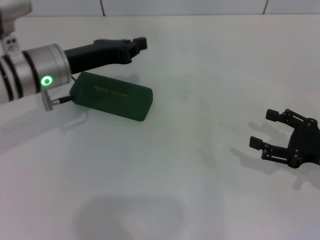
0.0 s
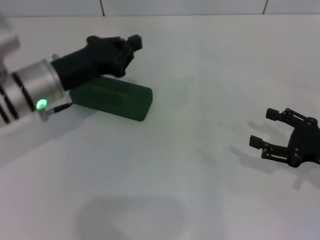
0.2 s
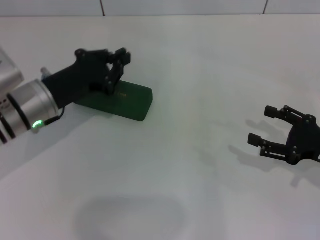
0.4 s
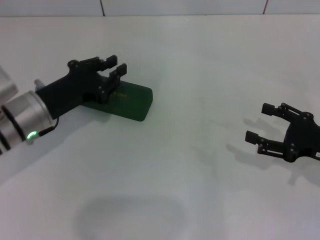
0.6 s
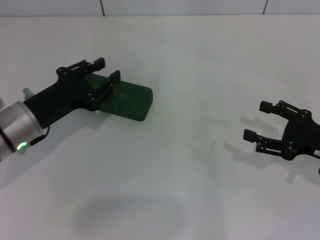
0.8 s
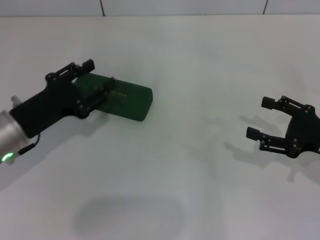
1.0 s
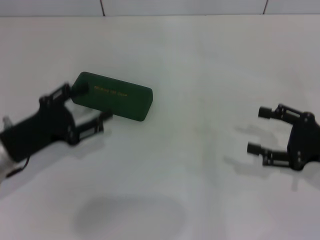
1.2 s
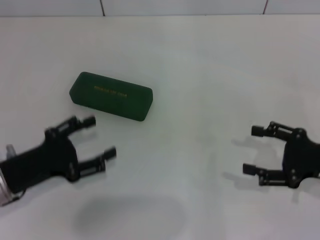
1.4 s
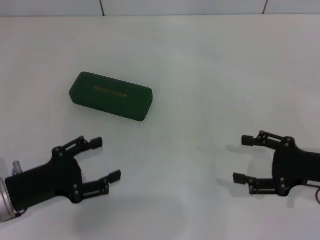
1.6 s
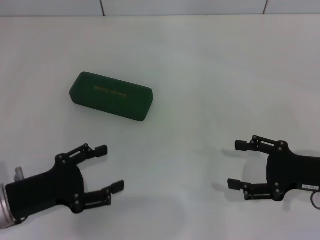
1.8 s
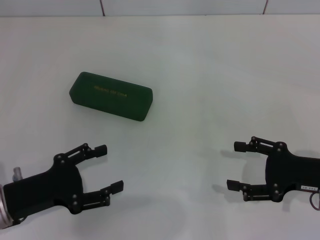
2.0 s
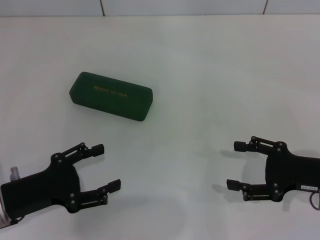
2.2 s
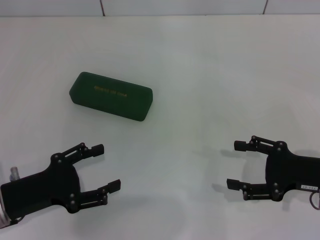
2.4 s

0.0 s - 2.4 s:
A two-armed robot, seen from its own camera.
0.0 s - 1.2 s: The left gripper travels backward, to the left and downward by roughly 15 cm, and opens its fingers.
1.2 s - 2.4 s: The left gripper moves backward, roughly 5 cm.

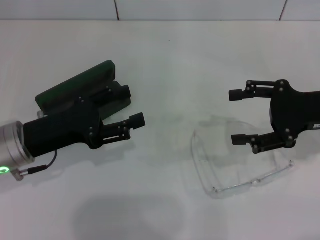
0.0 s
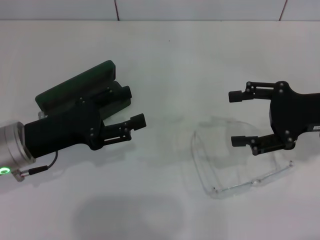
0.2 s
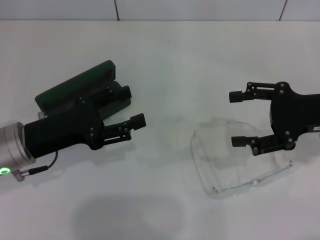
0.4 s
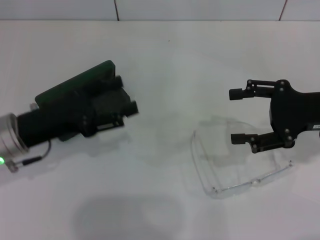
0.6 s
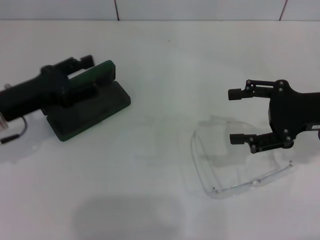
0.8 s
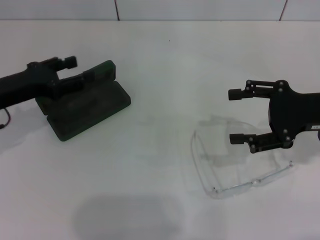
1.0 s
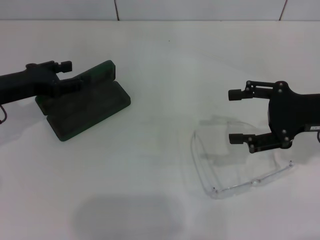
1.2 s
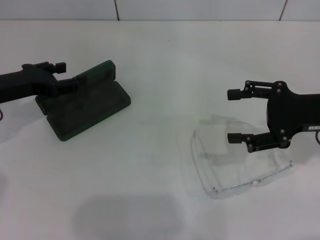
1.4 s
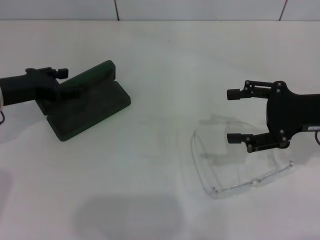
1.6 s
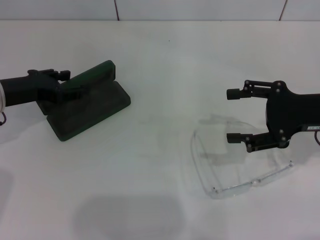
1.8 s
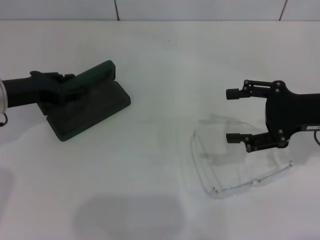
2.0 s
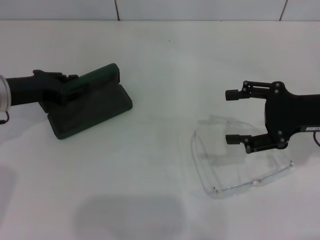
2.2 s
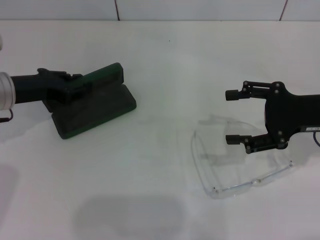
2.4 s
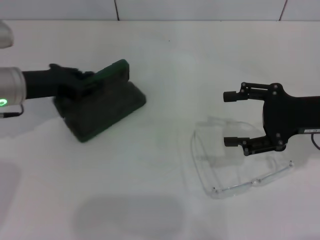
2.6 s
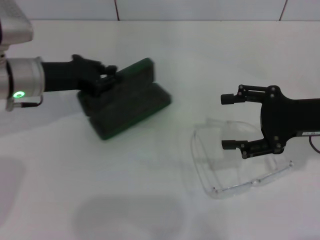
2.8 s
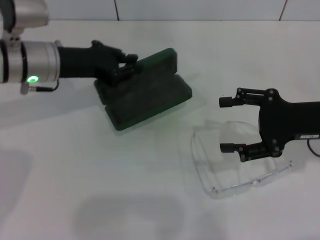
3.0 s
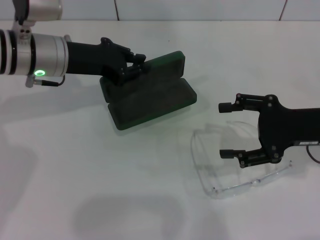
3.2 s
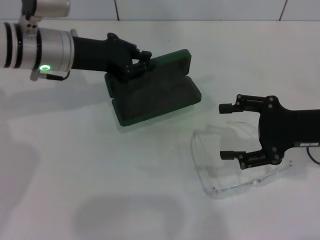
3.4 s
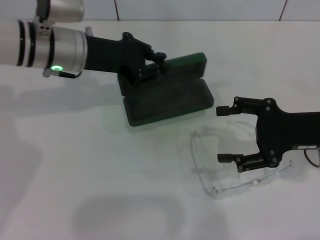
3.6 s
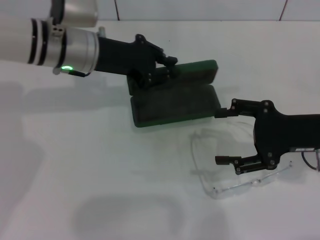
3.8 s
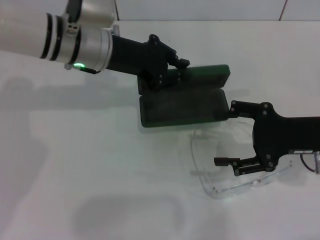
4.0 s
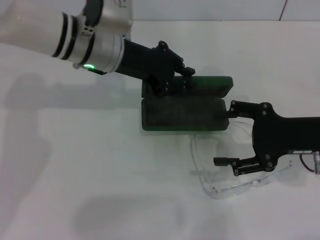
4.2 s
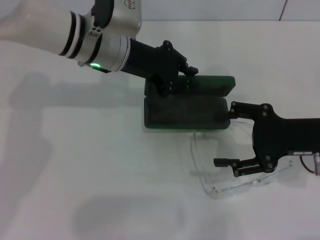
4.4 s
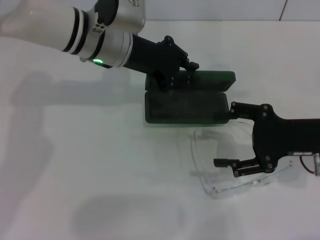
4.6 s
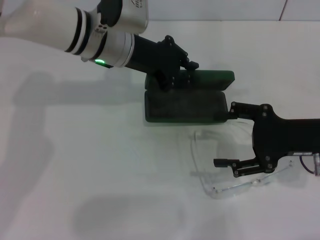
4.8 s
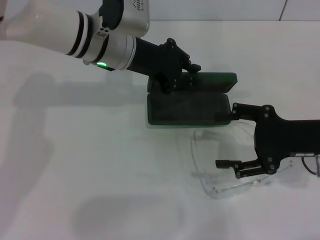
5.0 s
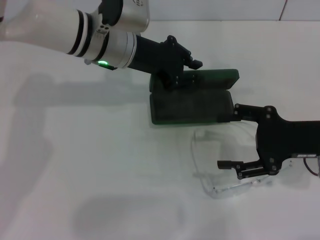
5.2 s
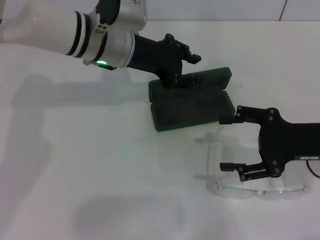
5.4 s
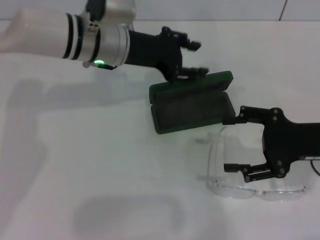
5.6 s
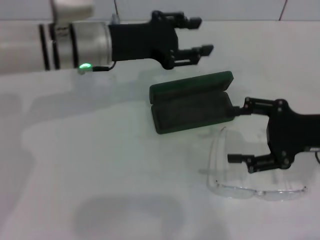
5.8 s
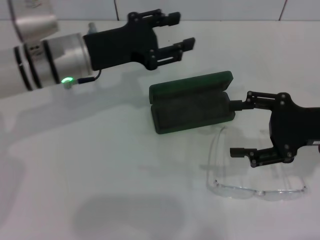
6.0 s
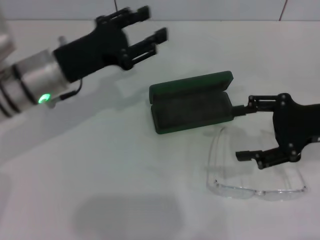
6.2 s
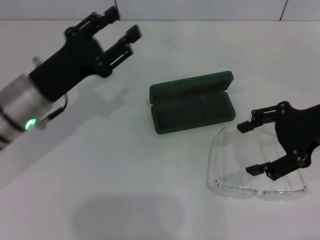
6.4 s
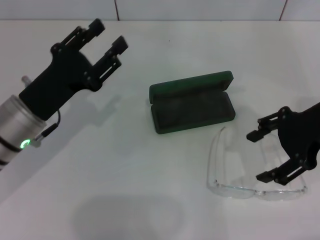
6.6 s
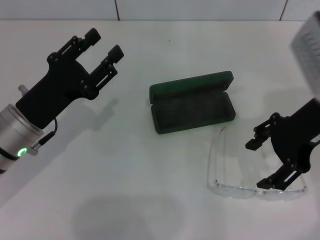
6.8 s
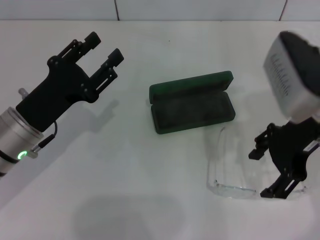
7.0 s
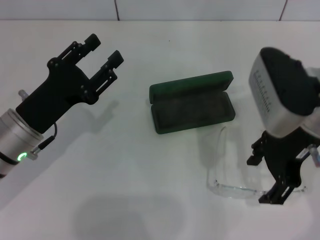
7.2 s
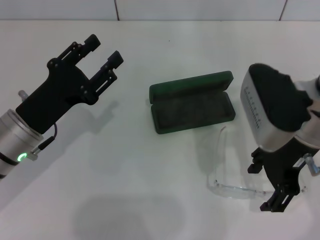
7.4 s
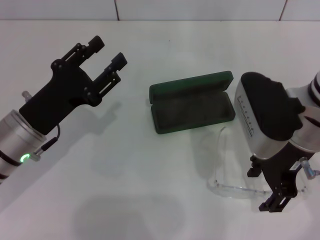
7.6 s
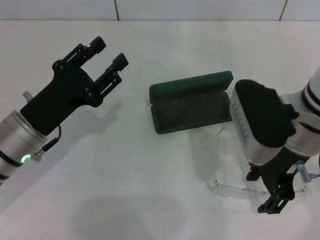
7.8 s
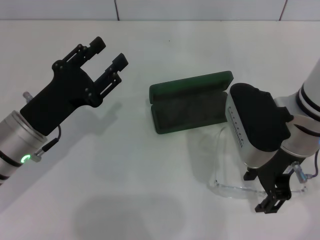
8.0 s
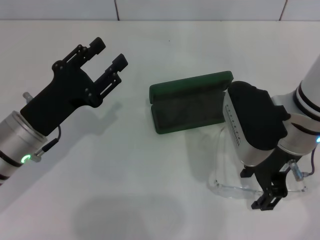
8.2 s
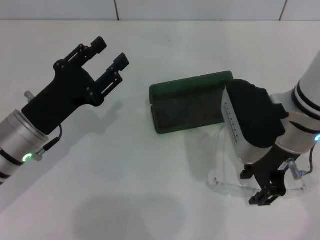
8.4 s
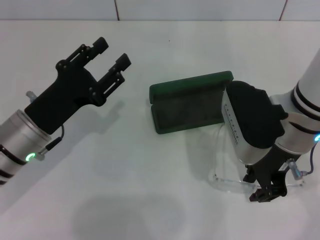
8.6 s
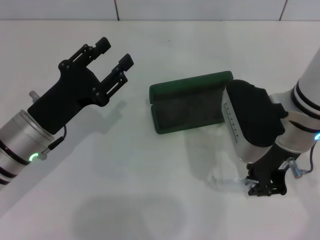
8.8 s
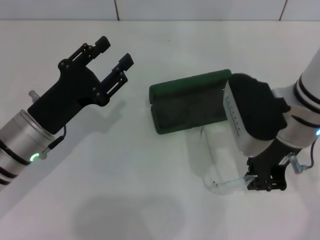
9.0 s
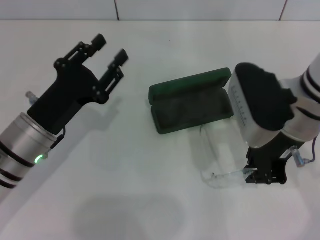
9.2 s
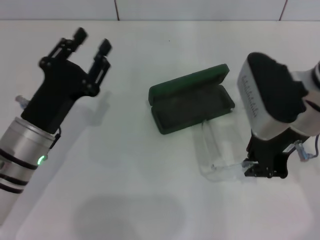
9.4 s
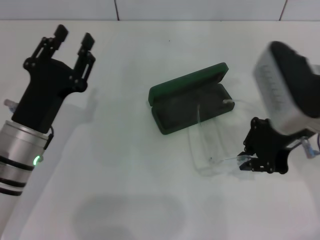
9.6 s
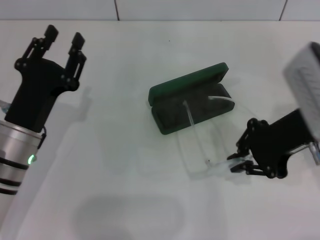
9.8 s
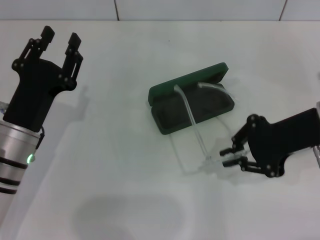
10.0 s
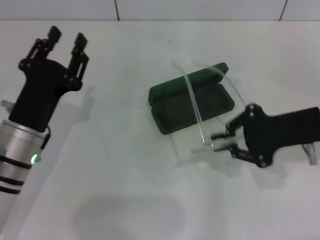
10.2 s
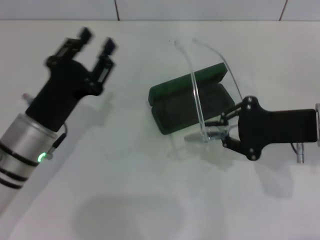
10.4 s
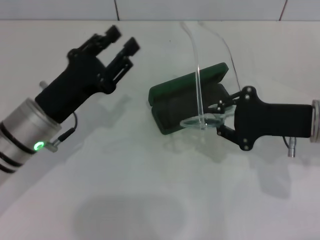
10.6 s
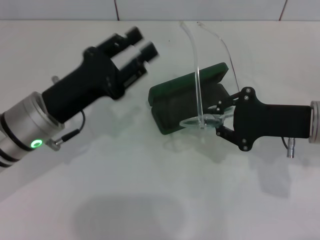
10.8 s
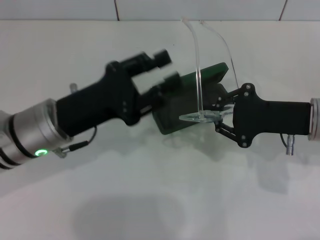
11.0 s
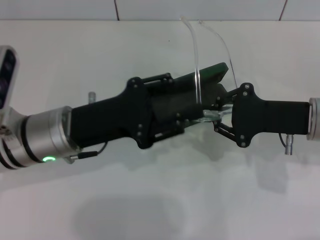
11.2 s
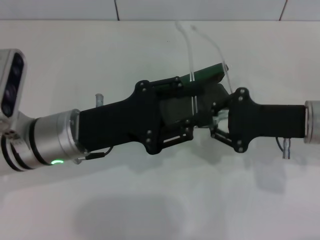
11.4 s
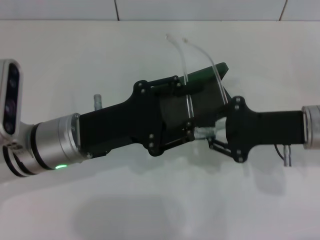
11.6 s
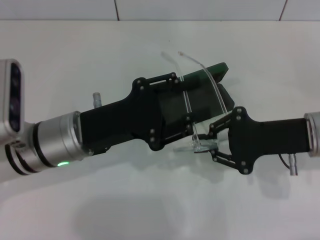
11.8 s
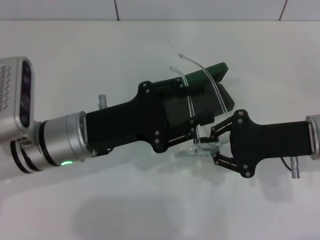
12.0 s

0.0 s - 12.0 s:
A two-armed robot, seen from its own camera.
Step, 0.0 s - 2.0 s: Grab the glasses case with your left hand.
Step, 2.2 s - 5.2 s: Place the glasses case in the center of the table with your left hand.
Step, 5.4 s - 8.6 s: Grab the eyeglass frame with your right hand.
0.0 s - 1.6 s: The left gripper is displaced forward and to the left by roughly 10 cm.
1.6 s - 3.0 s: The left gripper moves to the right, some 10 cm, and closes.
3.0 s - 4.4 s: The left gripper heads to the right, covering about 10 cm.
4.4 s - 6.0 s: The left gripper shifts some 5 cm to the left, and opens its fingers.
6.0 s - 7.6 s: The left gripper is displaced backward, downward and to the left by about 15 cm. Meanwhile the right gripper shifts some 10 cm to the left.
7.6 s - 9.0 s: The right gripper closes its fingers.
9.0 s - 10.4 s: The right gripper moves to the right, some 10 cm.
10.4 s - 12.0 s: The left gripper moves some 5 cm.

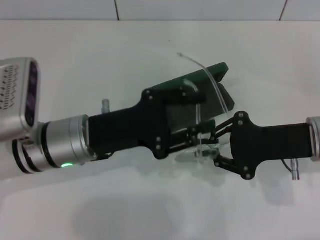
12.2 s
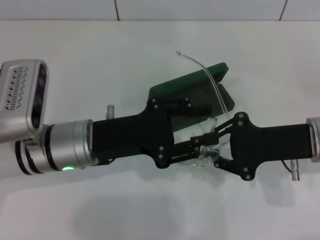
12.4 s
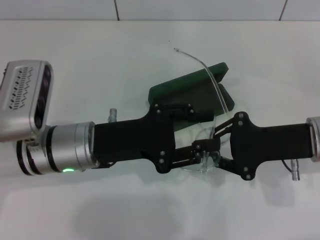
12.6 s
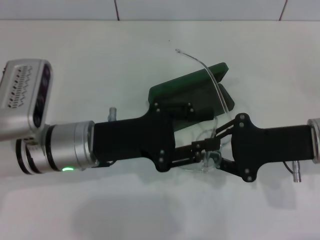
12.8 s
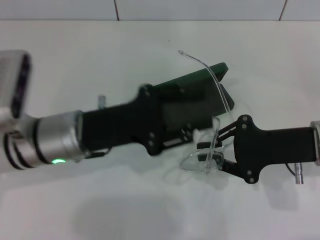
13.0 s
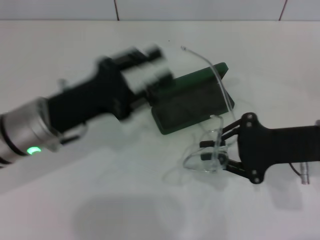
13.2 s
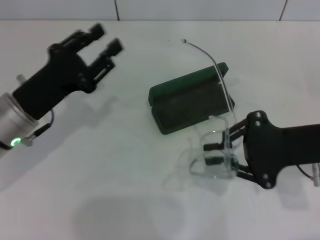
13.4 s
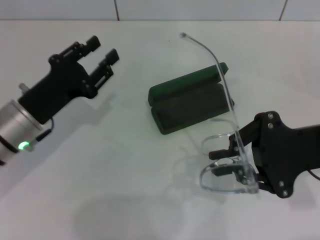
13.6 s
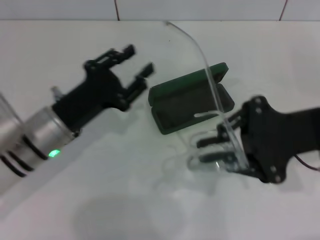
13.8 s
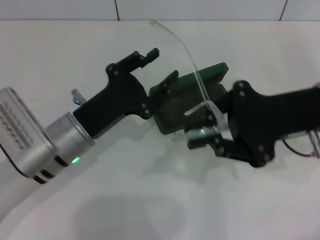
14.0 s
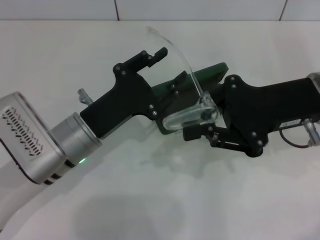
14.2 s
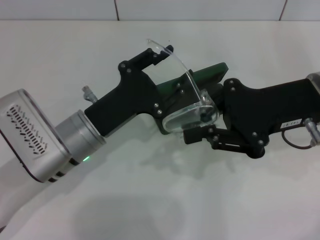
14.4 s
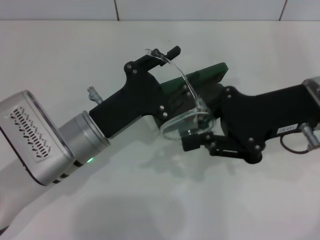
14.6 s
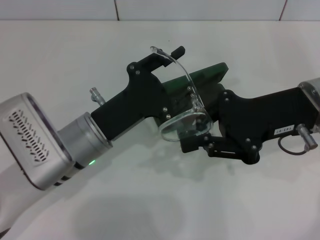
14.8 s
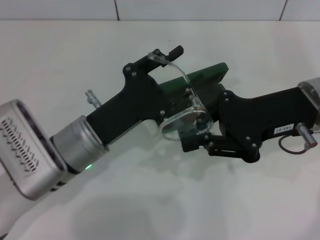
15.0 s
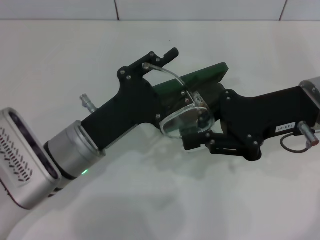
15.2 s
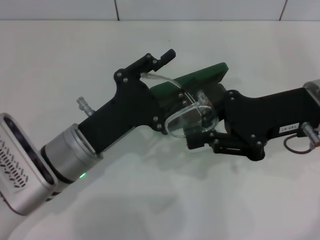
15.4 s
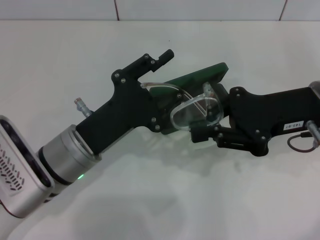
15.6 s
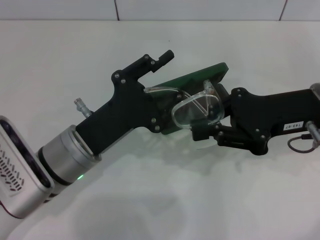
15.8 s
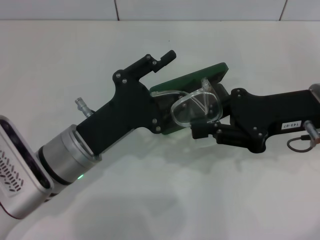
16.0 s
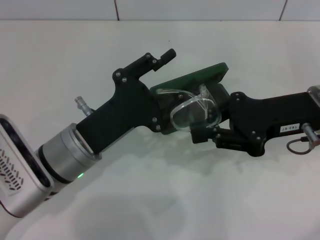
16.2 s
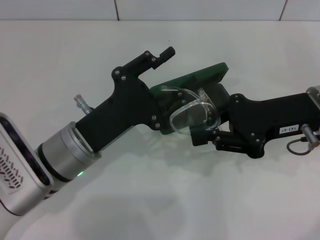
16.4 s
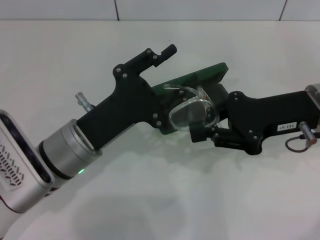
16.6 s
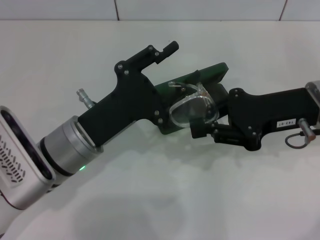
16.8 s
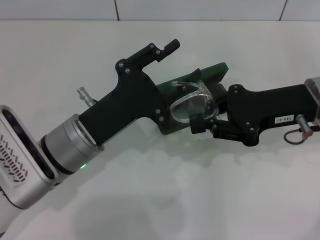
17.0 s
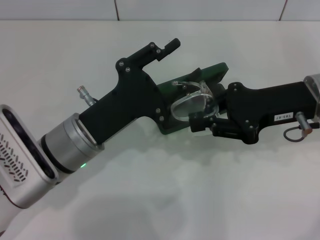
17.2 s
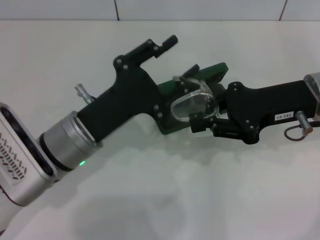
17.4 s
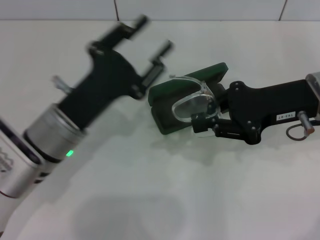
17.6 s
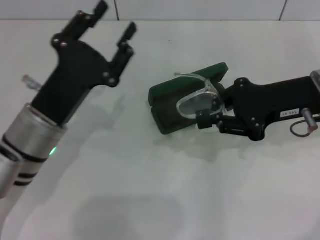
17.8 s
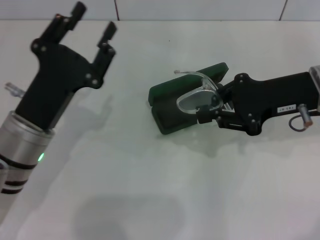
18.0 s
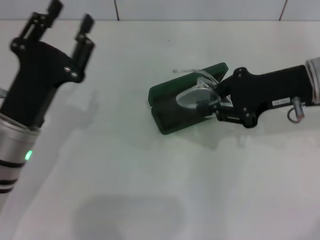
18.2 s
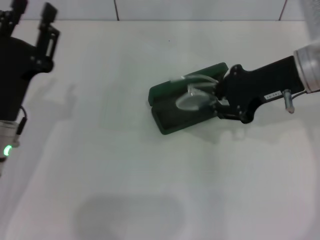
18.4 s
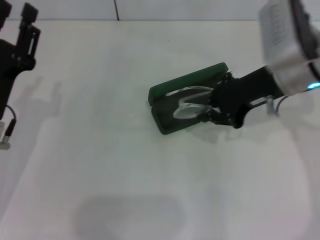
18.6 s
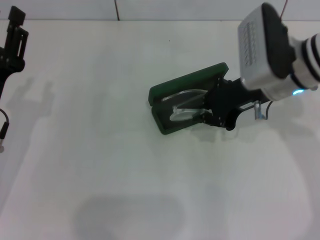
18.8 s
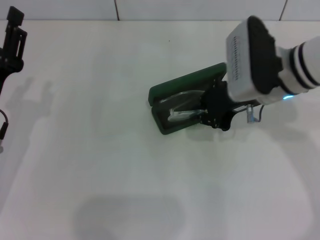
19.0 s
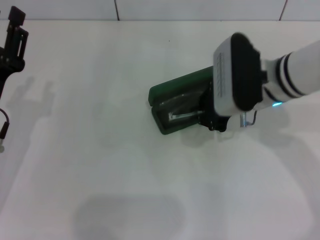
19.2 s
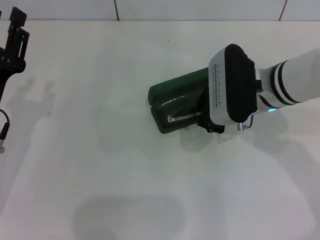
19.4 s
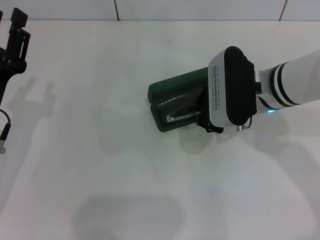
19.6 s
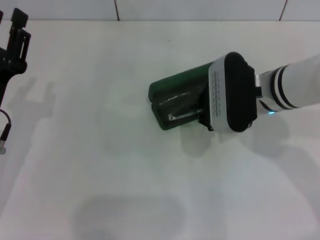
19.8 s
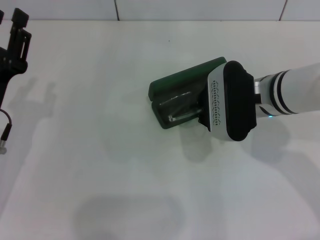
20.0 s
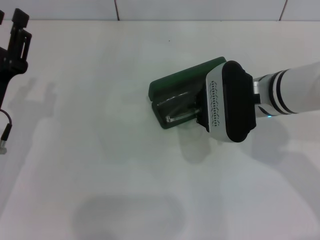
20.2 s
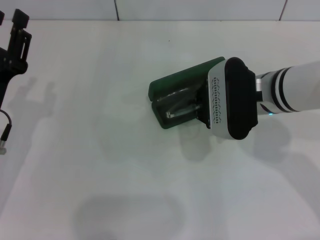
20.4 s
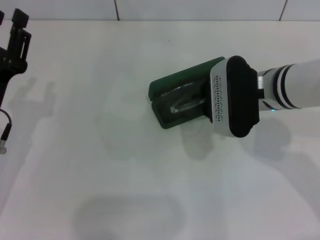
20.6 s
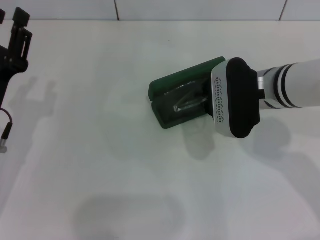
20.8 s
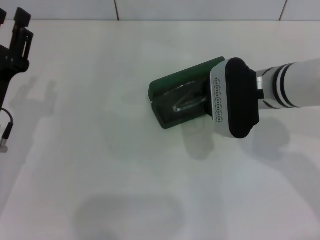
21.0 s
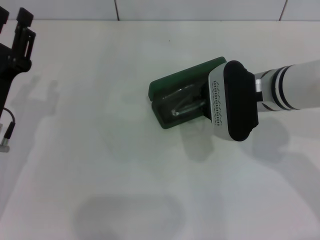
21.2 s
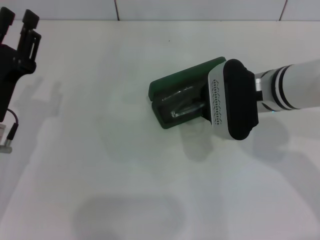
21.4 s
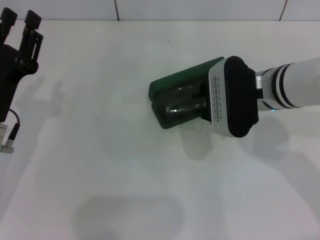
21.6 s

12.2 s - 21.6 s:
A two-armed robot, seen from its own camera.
Step, 12.2 s - 17.4 s: Lift the glasses with your right hand.
12.2 s - 13.8 s: The right gripper travels upward by approximately 5 cm.
13.8 s - 15.4 s: The left gripper shifts by about 5 cm.
15.4 s - 17.0 s: The grippers stay close to where they were, moving slightly.
17.0 s - 18.4 s: The right gripper moves about 5 cm, while the left gripper is displaced to the left by some 10 cm.
18.4 s - 20.0 s: The right gripper goes about 10 cm to the left and downward.
20.0 s - 21.6 s: The grippers make only small movements.
